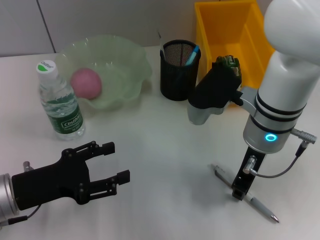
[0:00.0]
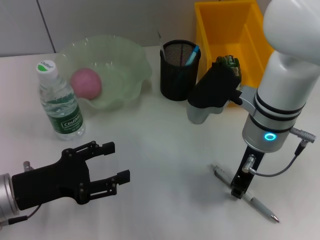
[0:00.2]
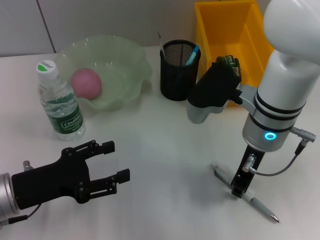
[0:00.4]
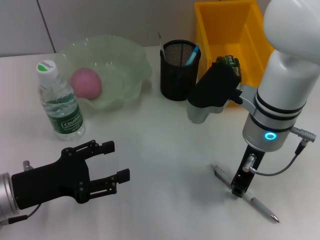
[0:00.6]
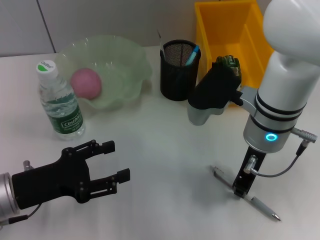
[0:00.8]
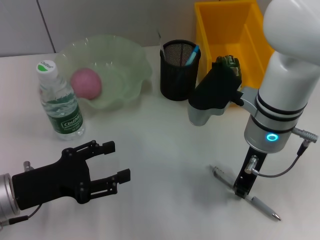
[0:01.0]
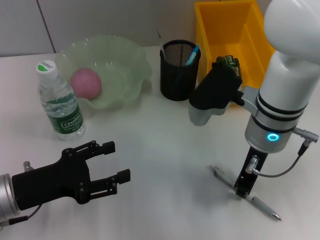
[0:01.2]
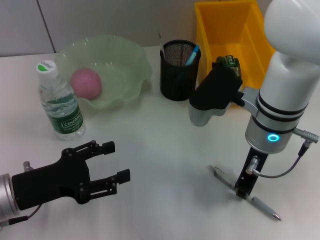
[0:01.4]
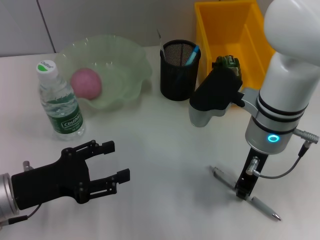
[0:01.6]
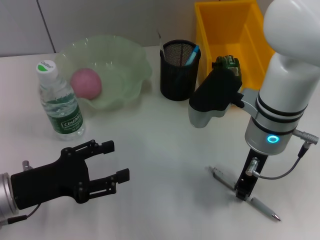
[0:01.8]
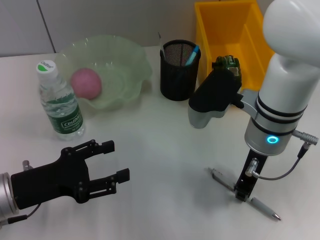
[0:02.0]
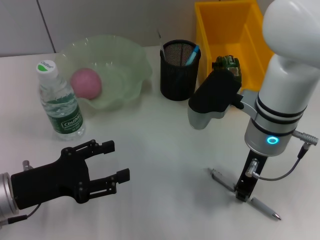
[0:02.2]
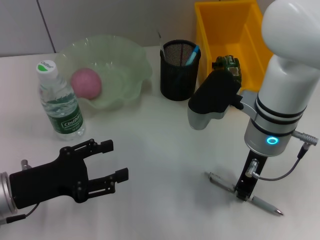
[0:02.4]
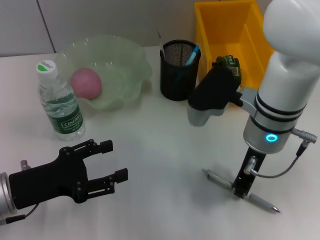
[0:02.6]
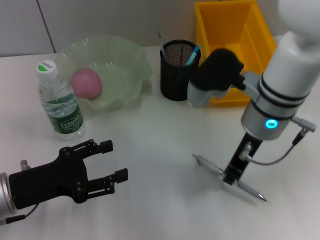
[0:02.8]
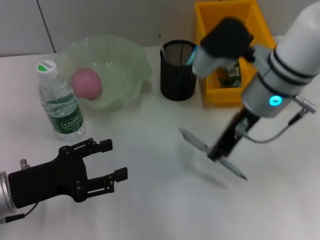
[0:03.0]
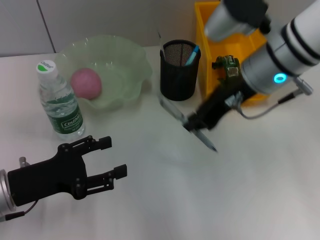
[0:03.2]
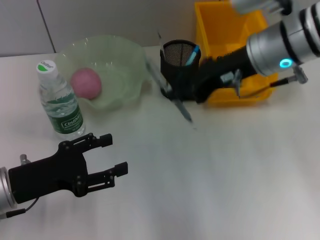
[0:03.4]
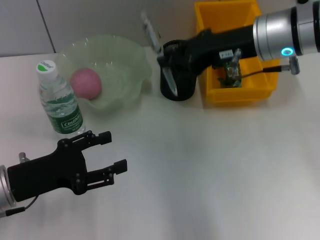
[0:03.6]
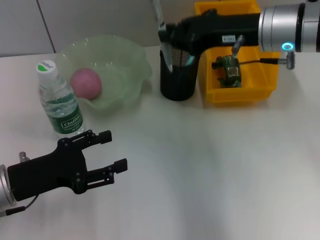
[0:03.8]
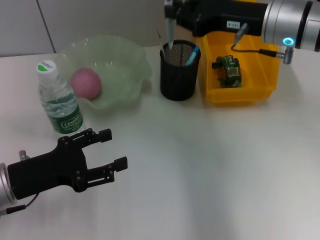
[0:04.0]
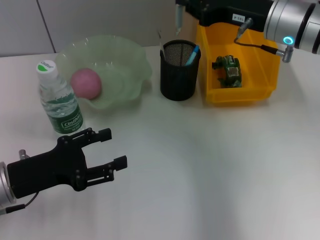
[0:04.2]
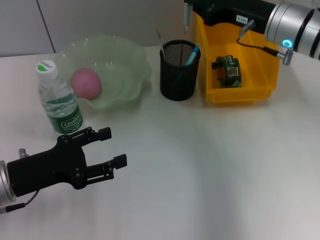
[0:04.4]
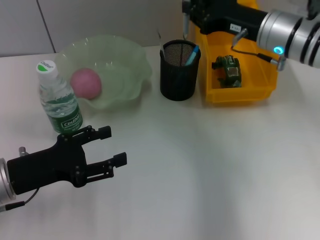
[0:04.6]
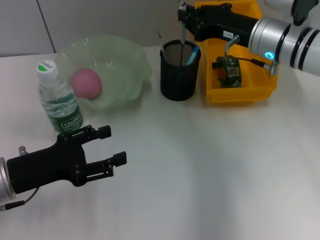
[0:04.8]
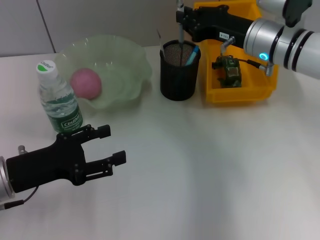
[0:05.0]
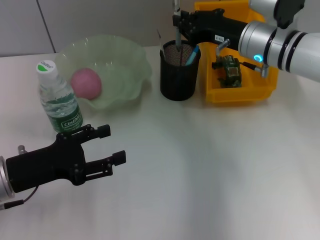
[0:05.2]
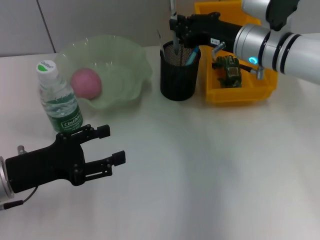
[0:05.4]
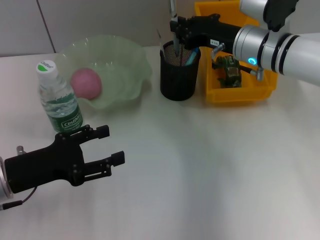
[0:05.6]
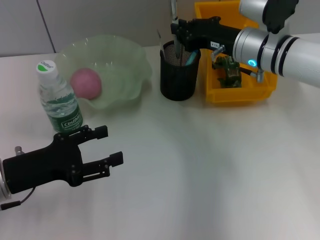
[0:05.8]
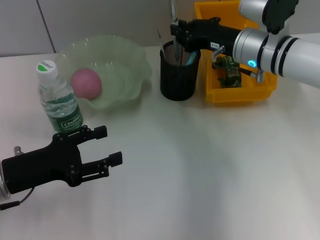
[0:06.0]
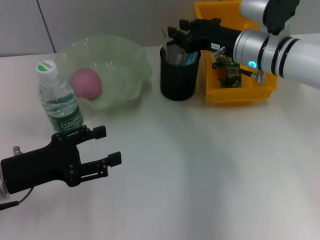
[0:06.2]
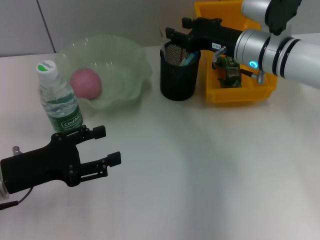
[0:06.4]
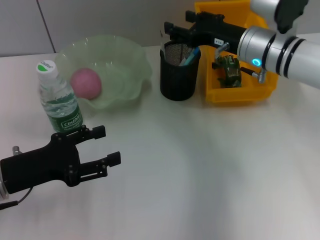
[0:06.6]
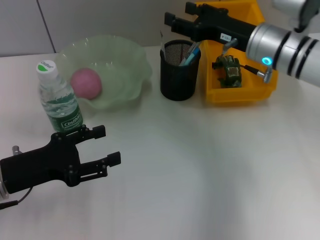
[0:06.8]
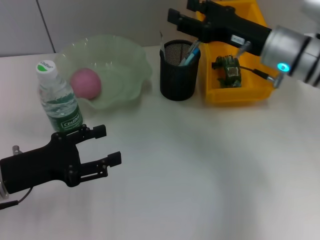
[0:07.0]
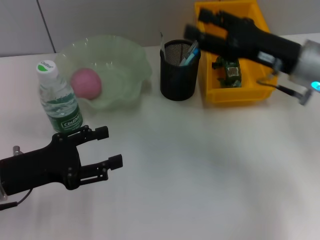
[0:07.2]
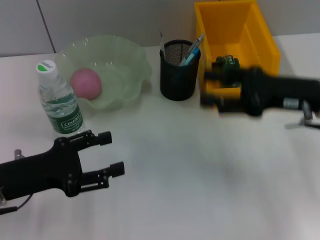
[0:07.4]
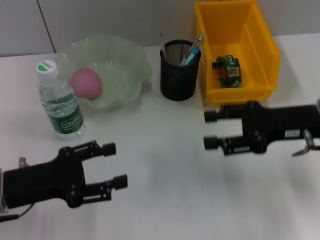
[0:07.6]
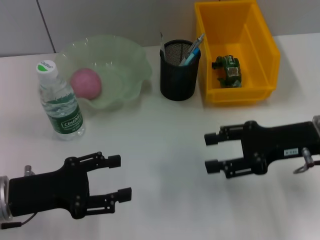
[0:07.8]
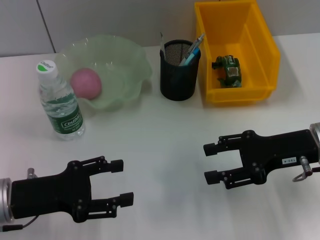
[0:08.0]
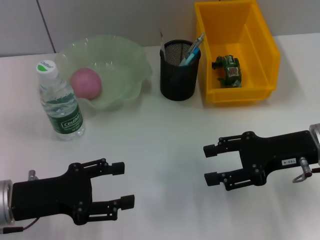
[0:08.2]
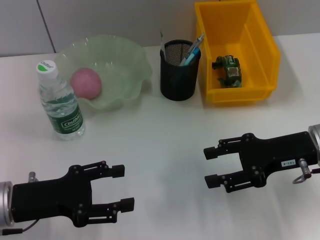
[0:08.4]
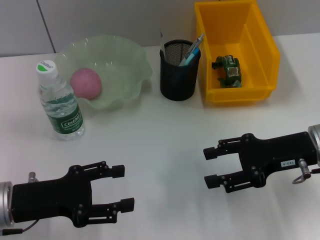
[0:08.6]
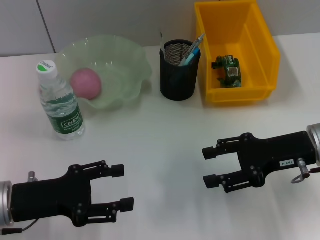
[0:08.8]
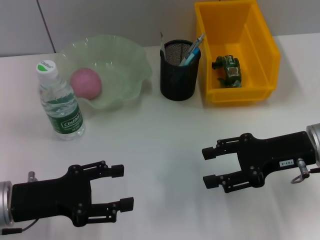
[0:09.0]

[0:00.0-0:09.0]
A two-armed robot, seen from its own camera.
Step, 0:00.0 to 0:02.2: Grab the gray spring-action pen with the right hand.
Step, 0:02.6 to 0:07.0: Place the gray spring-action pen into the pen holder with the right hand.
0:00.0 to 0:01.6: Neither gripper changes place.
0:01.6 to 0:03.0: The right gripper shifts by roughly 5 cm.
0:03.0 to 0:04.4: The right gripper heads to the right and forward, covering approximately 10 cm.
0:04.4 to 0:06.0: The right gripper moves some 5 cm.
0:06.0 to 0:07.6: The right gripper shifts some 15 cm backward and to the right, and opens its fingers.
0:07.6 to 0:09.0: The grippers move only a little.

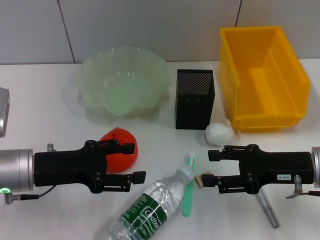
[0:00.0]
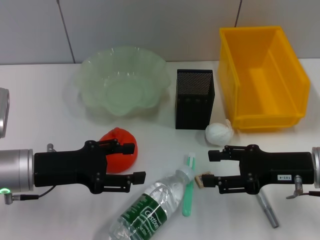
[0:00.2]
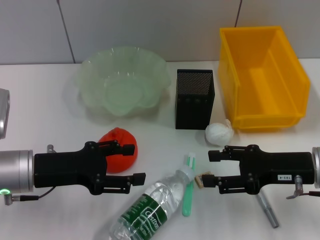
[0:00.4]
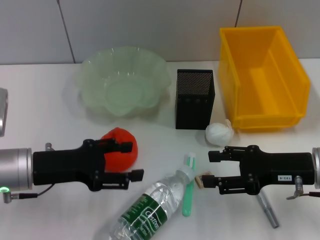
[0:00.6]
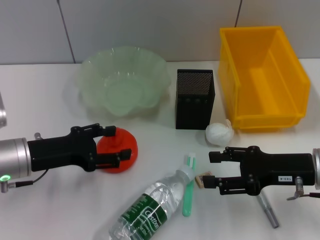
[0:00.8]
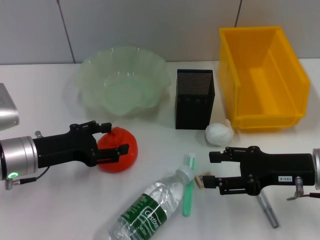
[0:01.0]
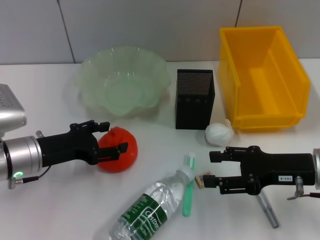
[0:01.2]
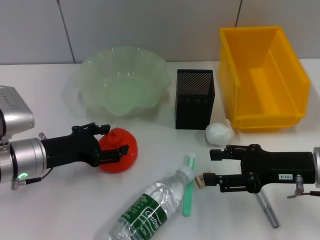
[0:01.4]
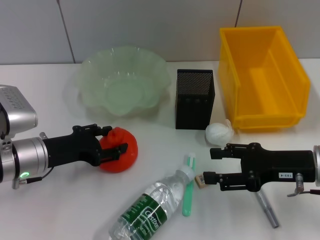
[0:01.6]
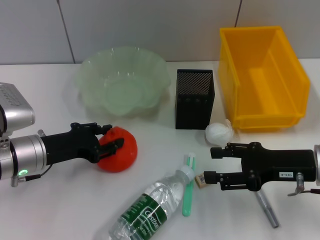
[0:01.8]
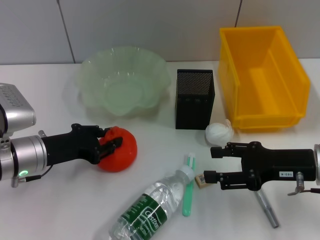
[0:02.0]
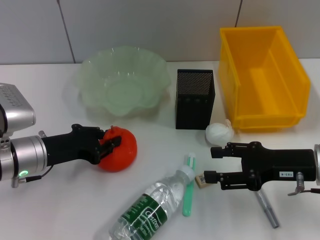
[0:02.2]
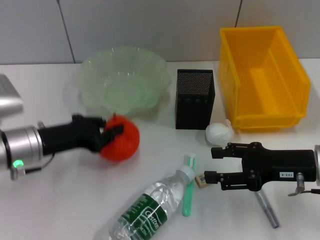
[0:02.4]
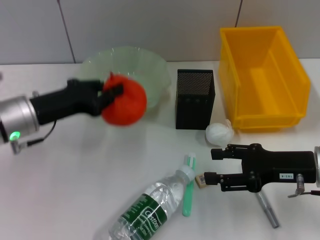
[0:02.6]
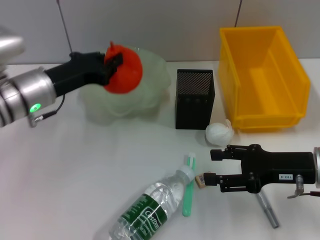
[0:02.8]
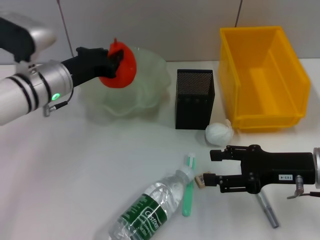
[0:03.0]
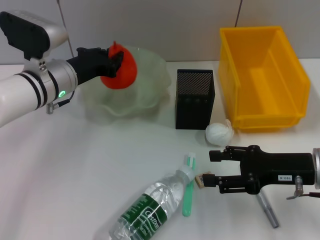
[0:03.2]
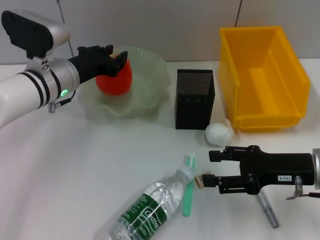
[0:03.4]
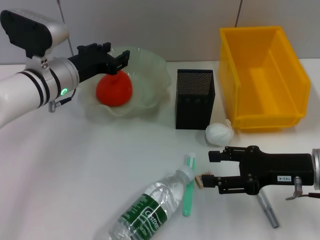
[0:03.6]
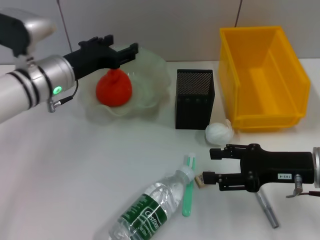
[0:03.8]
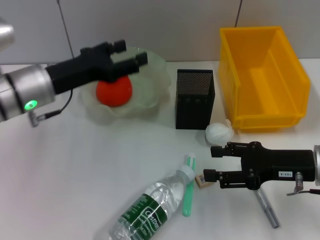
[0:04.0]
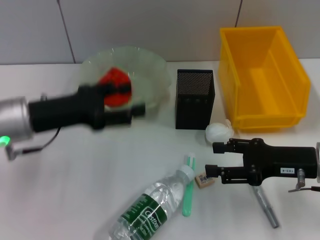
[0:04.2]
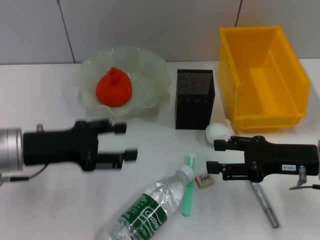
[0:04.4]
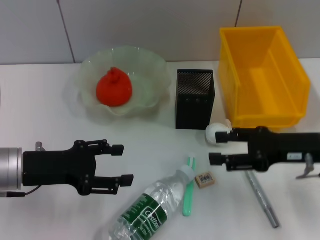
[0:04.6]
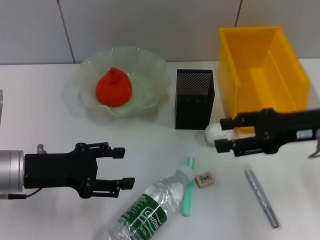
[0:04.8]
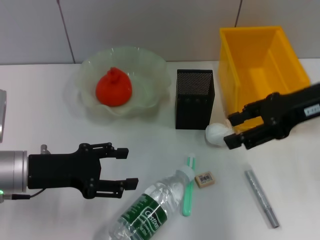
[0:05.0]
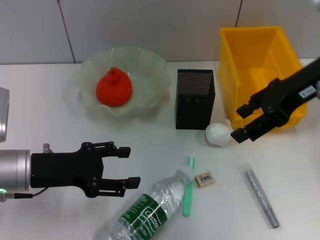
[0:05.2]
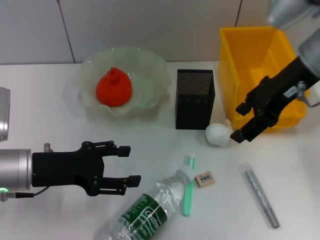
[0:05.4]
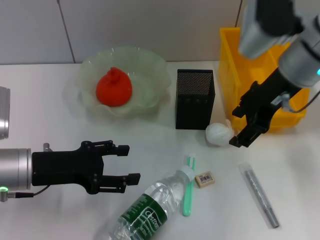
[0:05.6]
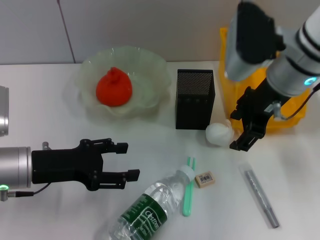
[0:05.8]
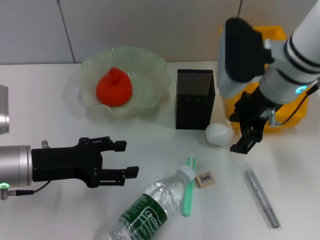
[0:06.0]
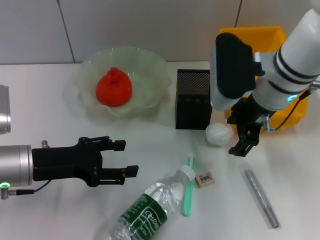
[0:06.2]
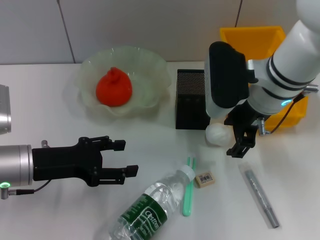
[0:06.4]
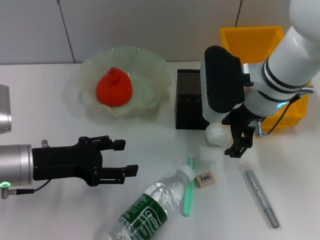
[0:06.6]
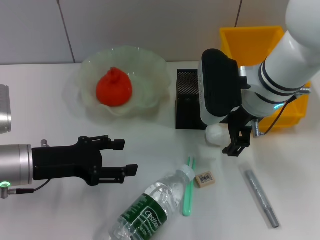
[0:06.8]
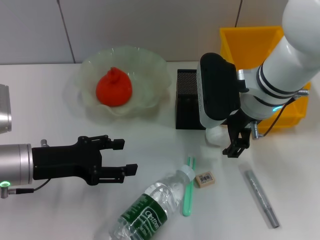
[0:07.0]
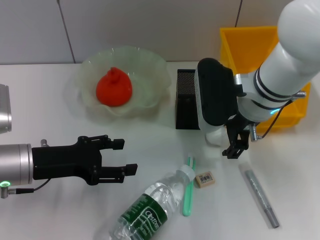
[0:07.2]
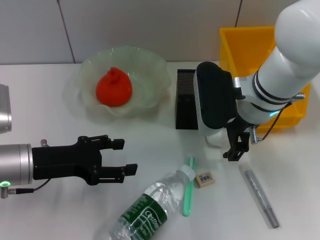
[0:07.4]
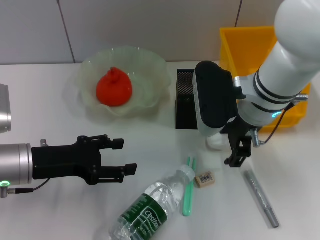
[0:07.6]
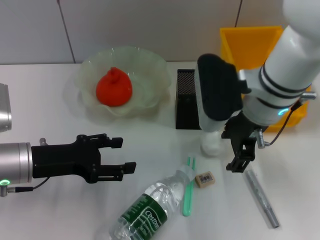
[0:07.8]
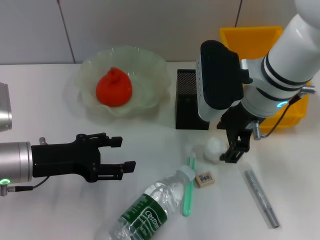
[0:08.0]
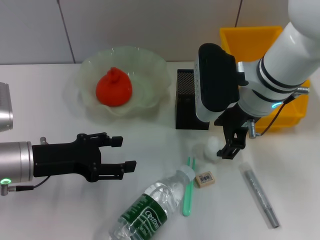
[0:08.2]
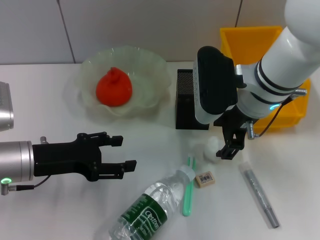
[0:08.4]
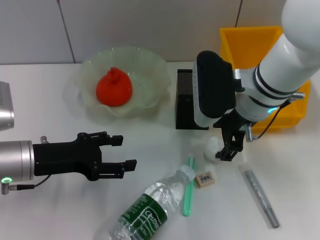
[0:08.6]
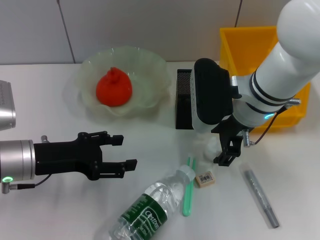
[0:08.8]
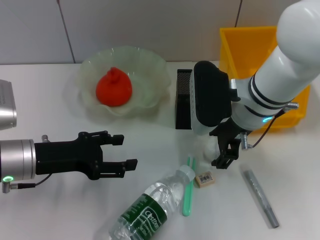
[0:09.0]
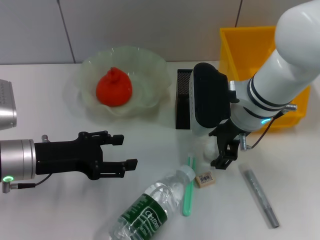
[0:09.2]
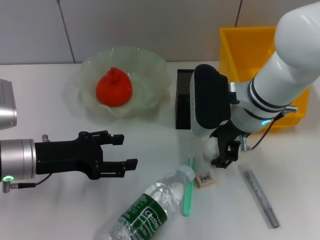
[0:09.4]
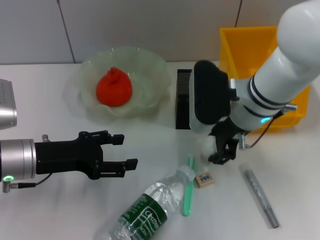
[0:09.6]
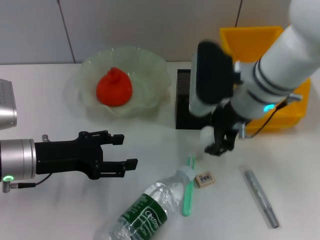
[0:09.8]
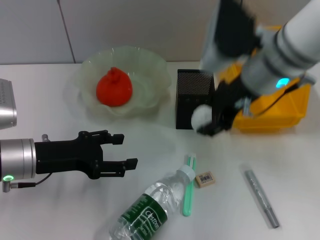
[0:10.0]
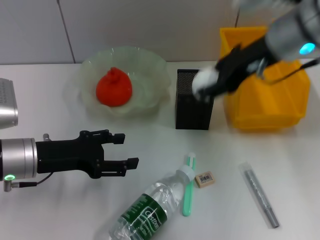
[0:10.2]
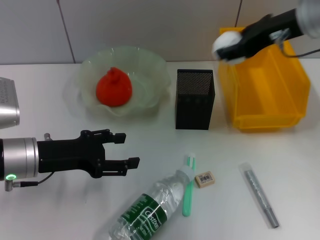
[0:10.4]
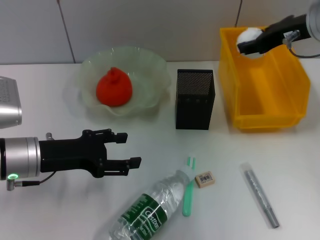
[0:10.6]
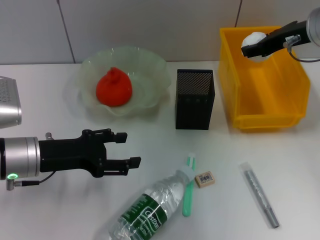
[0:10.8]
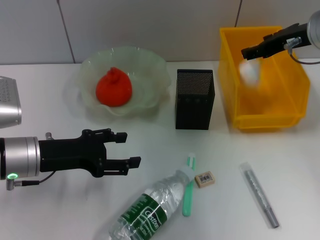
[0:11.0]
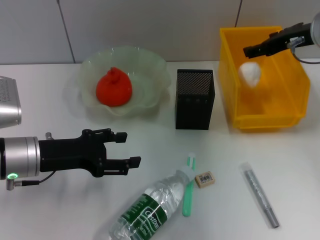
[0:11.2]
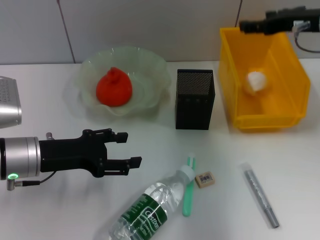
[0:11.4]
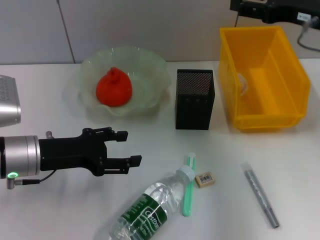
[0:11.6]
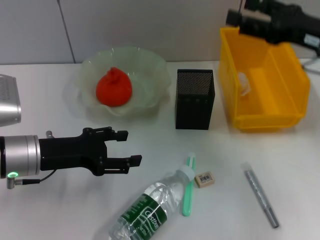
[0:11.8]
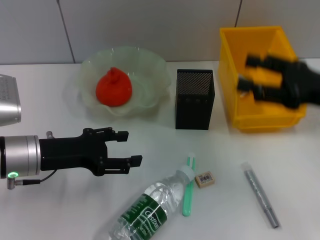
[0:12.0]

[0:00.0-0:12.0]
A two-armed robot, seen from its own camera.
Step, 0:00.0 to 0:02.0: Grab the orange with the left hand.
Step, 0:02.2 to 0:03.4: Place the orange into the fruit bowl with the left hand.
Step, 0:03.6 to 0:09.4: Grab the paper ball with the right hand.
Step, 0:09.6 to 0:11.2: Place the paper ball into the trash can with the right hand.
0:01.6 to 0:03.0: The left gripper goes about 10 cm forward and upward, and closes up.
0:03.0 to 0:04.4: The left gripper travels backward and to the left by some 10 cm, and opens.
0:04.4 to 0:06.0: The right gripper is displaced to the left, upward and forward by about 20 cm.
0:06.0 to 0:09.0: The grippers make only small movements.
0:09.0 to 0:10.4: The right gripper is displaced upward and to the right by about 15 cm.
0:10.4 to 0:12.0: The right gripper shifts some 15 cm downward, backward and to the right, and opens.

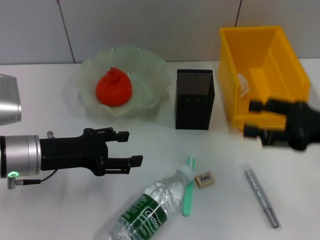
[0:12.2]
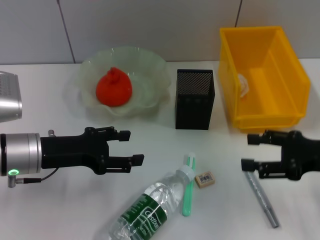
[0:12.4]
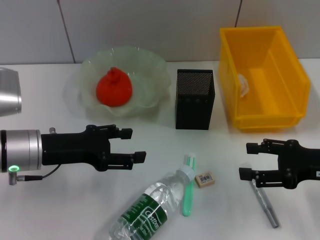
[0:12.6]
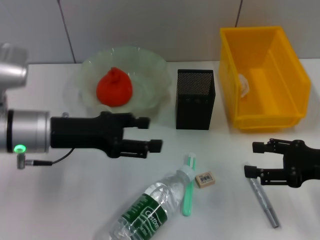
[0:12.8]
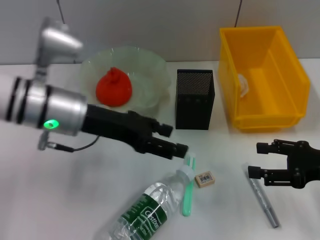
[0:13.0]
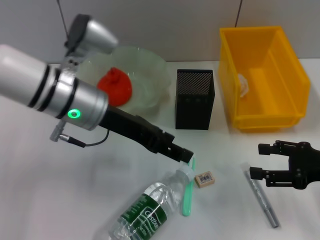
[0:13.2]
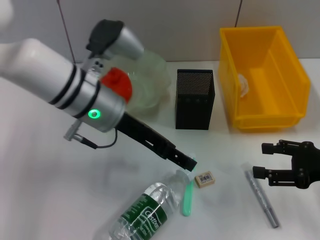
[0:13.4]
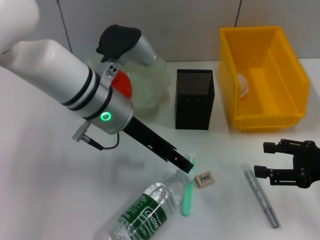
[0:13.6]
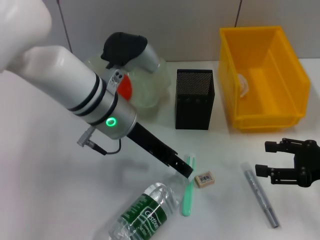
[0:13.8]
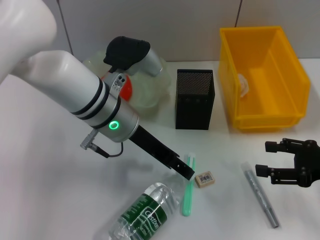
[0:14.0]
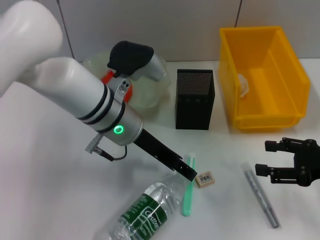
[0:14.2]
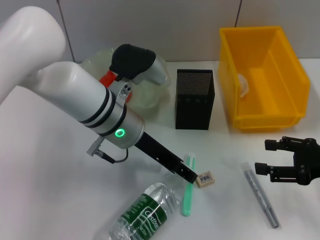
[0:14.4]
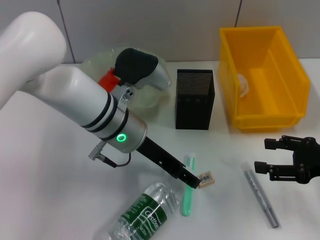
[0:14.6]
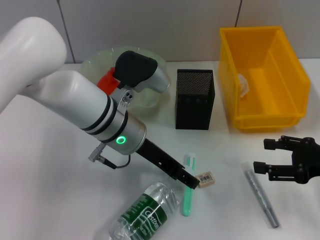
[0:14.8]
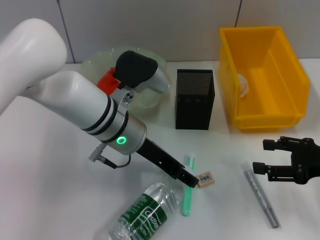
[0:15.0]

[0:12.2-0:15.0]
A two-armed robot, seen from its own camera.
0:12.2 to 0:13.6: The left gripper moves to the right, upward and forward, roughly 15 cm.
0:13.6 to 0:15.0: The grippers make only small movements.
